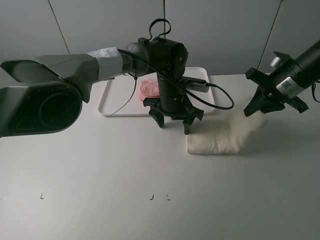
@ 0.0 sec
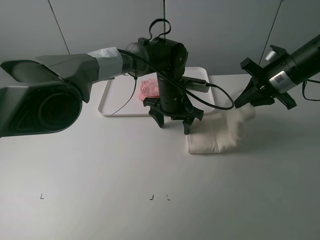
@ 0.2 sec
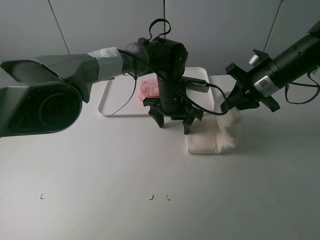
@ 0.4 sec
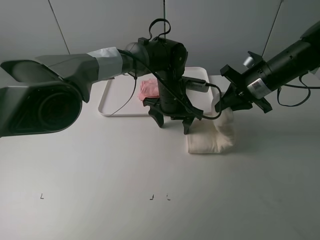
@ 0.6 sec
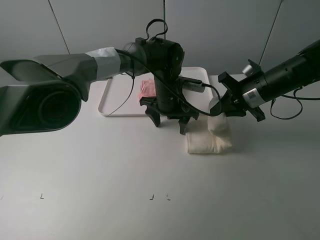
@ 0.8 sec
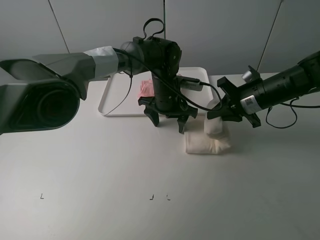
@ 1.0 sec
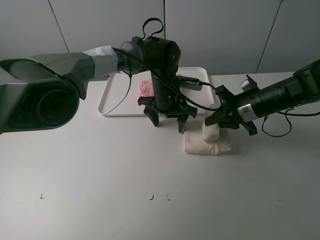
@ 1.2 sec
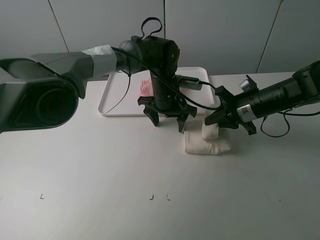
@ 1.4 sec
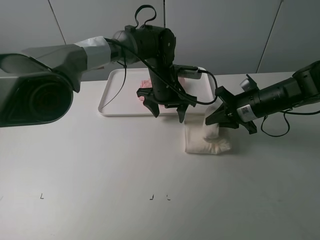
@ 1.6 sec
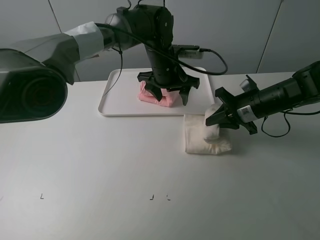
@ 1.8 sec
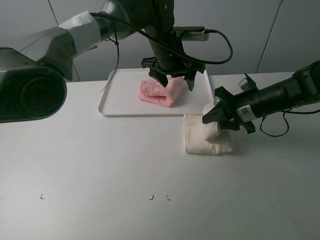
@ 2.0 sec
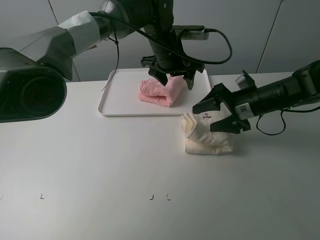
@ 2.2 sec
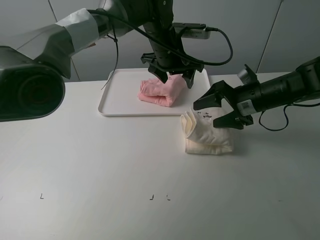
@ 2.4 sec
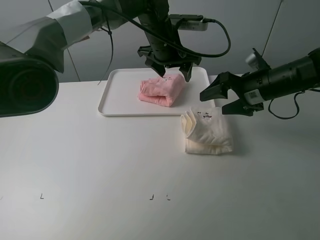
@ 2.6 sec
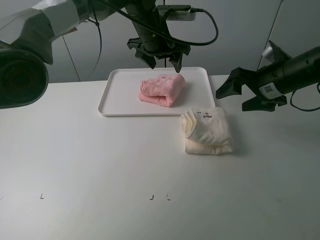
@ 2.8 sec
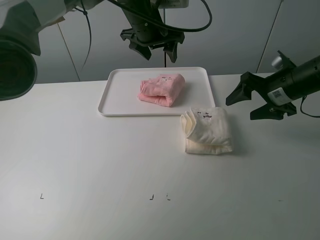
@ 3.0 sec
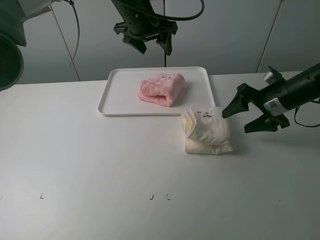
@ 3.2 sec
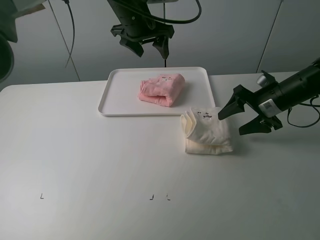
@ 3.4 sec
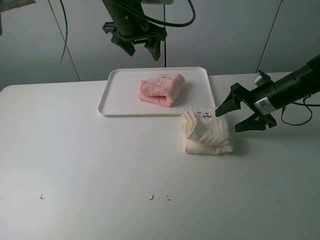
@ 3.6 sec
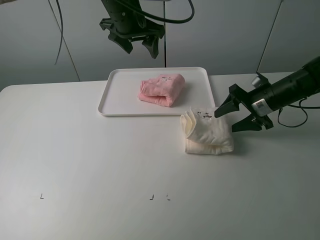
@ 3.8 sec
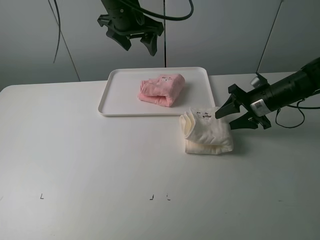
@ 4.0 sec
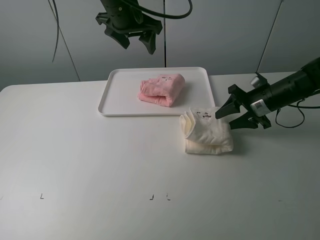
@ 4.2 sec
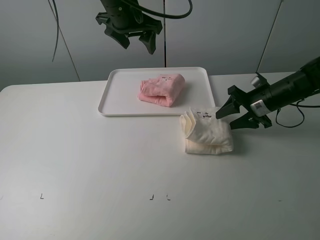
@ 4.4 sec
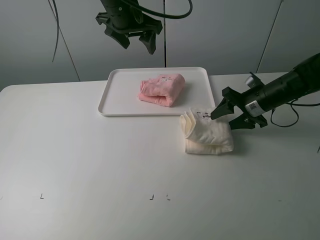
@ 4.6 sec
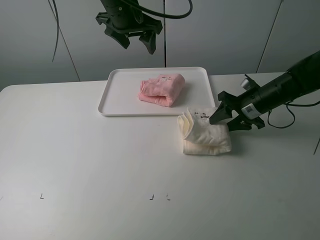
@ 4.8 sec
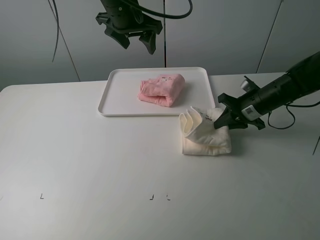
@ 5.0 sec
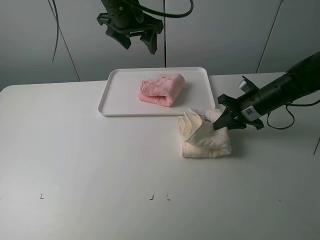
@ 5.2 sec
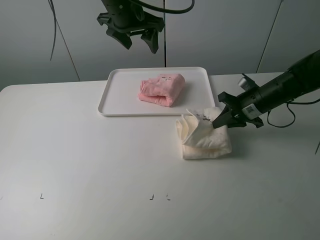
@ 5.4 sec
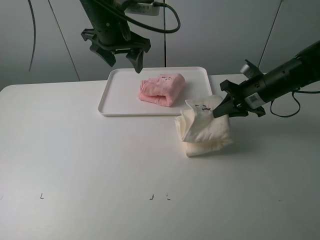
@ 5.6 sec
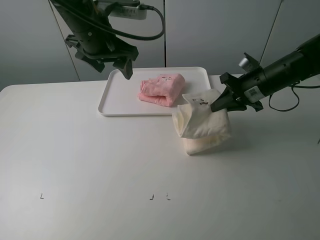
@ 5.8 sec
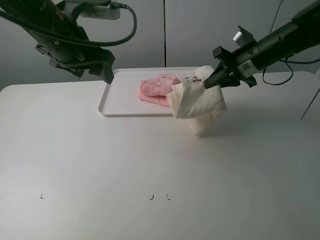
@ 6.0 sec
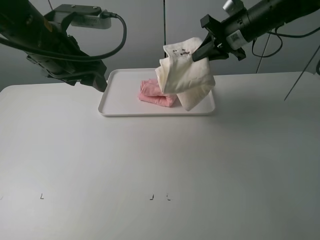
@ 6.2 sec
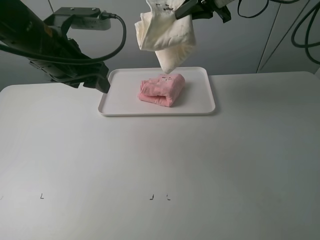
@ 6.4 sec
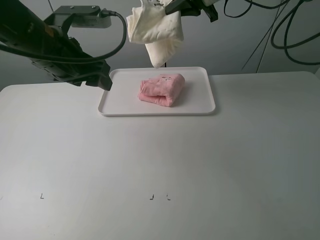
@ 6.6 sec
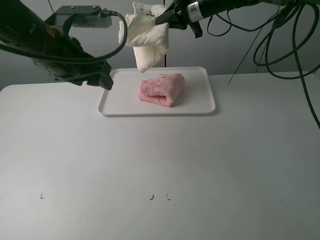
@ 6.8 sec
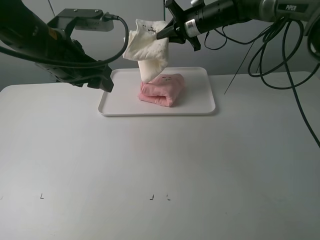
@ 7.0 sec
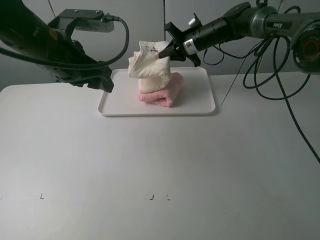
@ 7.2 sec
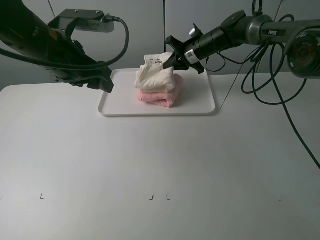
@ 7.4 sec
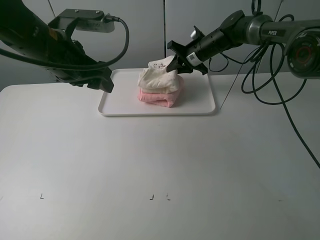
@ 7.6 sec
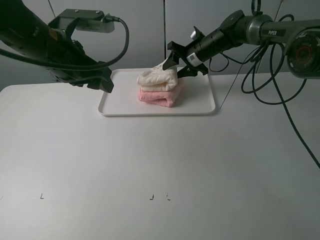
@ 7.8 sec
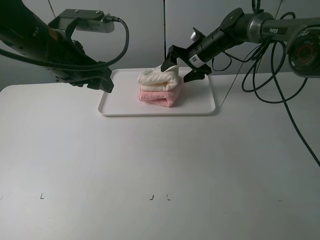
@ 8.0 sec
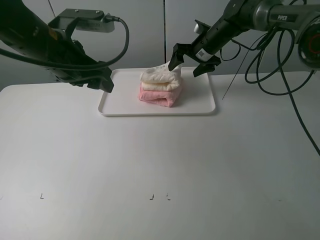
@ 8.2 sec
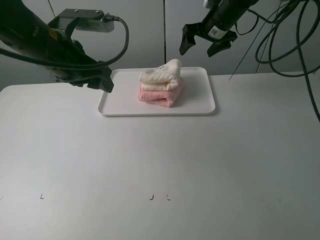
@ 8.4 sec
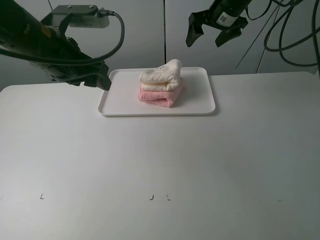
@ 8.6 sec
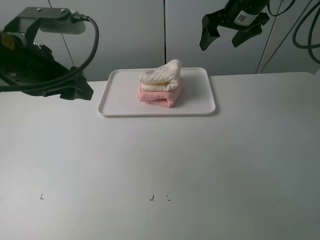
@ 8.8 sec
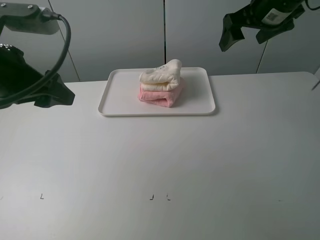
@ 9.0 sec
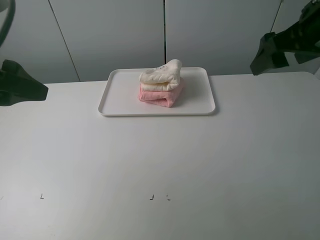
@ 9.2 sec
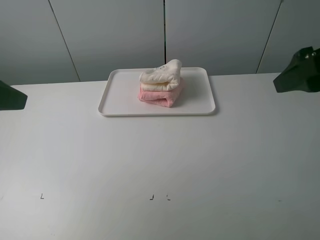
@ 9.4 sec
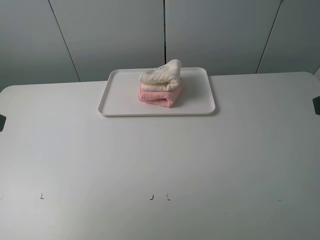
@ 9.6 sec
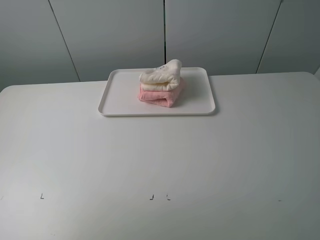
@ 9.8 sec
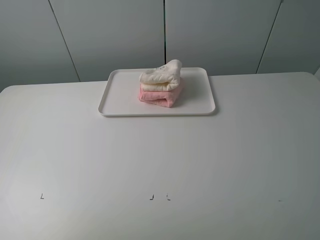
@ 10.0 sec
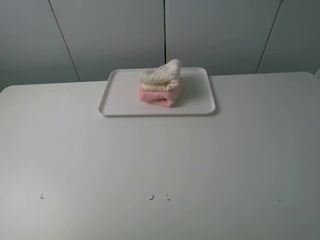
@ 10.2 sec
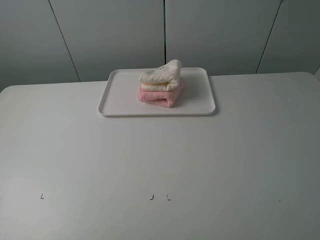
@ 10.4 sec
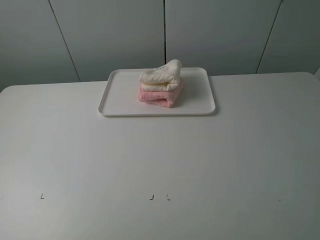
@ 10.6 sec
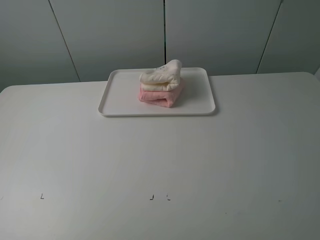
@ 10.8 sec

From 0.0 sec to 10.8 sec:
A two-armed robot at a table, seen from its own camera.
Task of the whole recording: fold one of the towels by two grippers and place it on the tray,then fold another towel by two grippers and place it on the folded towel.
Step, from 0.0 sec to 2.4 sec: Fold the white towel from right to left with right gripper.
Step, from 2.6 sec to 5.0 sec: Grasp the white towel with the right gripper.
Step, from 5.2 sec to 8.2 sec: Place the white towel on the pink towel with the right gripper.
From 0.0 sec to 1.6 sec: The right gripper travels downward and to the left by some 10 cm.
From 1.6 sec to 3.0 sec: The right gripper goes roughly 5 cm upward, and opens up. The left gripper goes approximately 10 cm upward.
From 3.0 sec to 4.6 sec: The right gripper travels downward by about 5 cm, while the left gripper shifts by roughly 5 cm.
From 4.6 sec to 6.2 sec: The left gripper goes some 15 cm backward and to the left; the right gripper goes roughly 20 cm upward, to the left and forward, and closes.
From 6.2 sec to 7.8 sec: The right gripper moves downward, forward and to the left, roughly 15 cm, and opens up.
From 7.8 sec to 9.2 sec: The right gripper goes roughly 35 cm backward and upward; the left gripper moves backward, to the left and upward, approximately 15 cm.
From 9.2 sec to 10.8 sec: The right gripper moves backward, roughly 25 cm. The left gripper is displaced backward and to the left by some 20 cm.

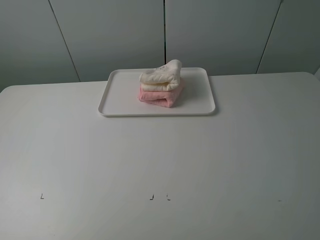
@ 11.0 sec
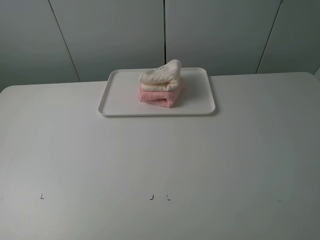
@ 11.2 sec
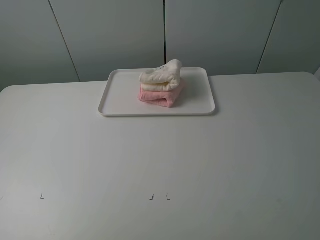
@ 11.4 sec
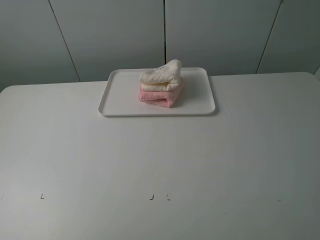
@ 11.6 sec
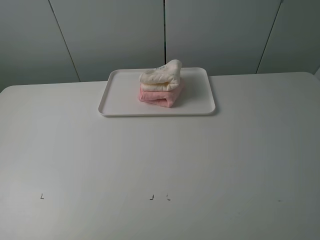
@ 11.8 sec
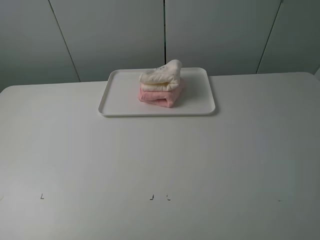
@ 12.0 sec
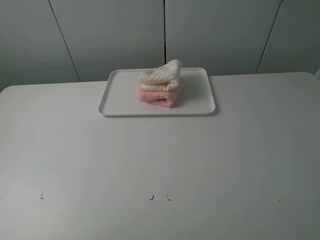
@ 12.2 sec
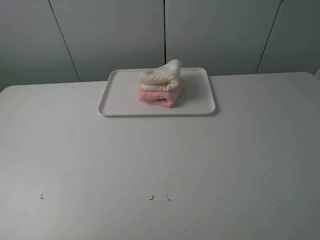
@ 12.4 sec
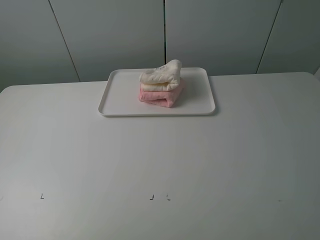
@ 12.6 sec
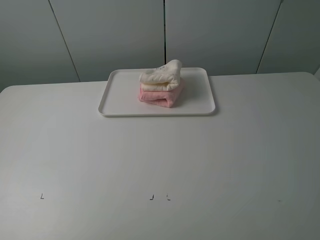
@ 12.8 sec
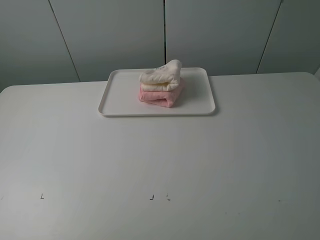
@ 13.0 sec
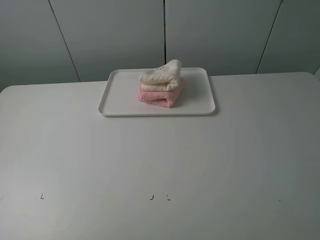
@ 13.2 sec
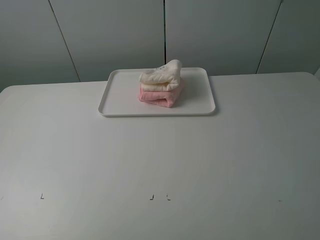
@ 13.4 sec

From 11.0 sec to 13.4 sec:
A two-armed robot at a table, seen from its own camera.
Task of the whole recording: fold one of the towels by two grippers and place it on the tray,then fold another towel by two grippers and place it on the folded towel.
From 12.2 sec to 13.4 sec: Both grippers stay about where they are.
